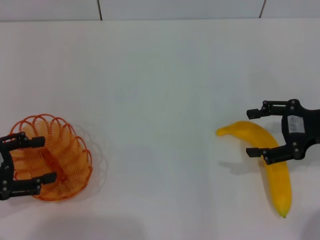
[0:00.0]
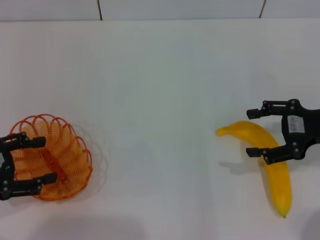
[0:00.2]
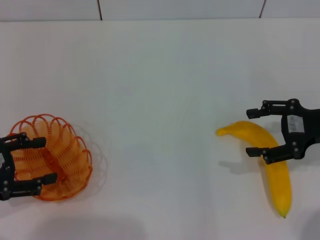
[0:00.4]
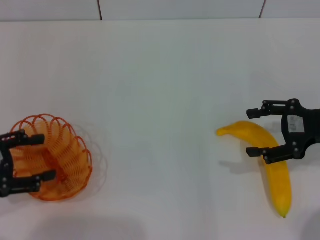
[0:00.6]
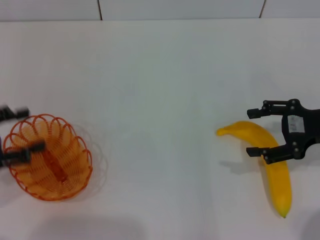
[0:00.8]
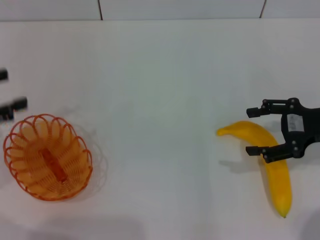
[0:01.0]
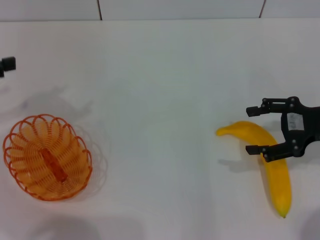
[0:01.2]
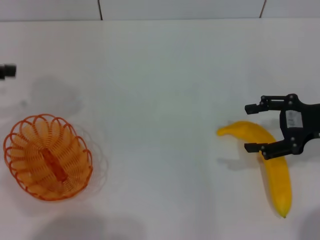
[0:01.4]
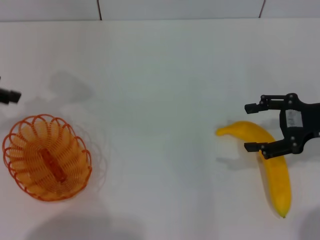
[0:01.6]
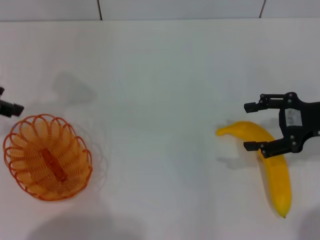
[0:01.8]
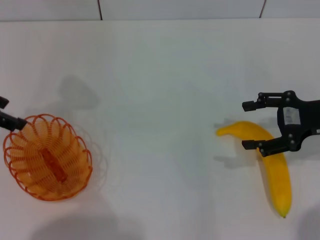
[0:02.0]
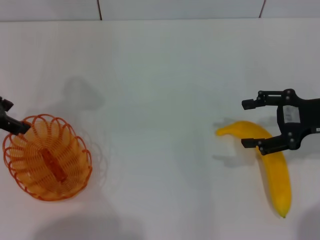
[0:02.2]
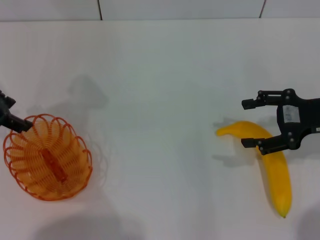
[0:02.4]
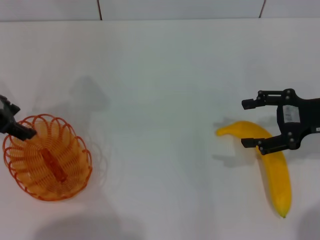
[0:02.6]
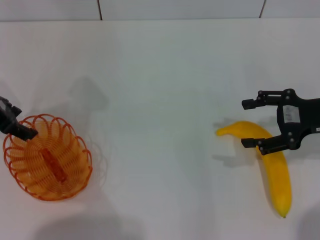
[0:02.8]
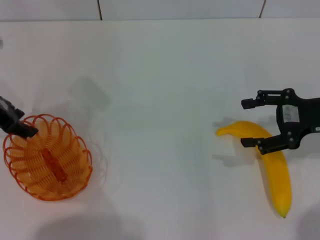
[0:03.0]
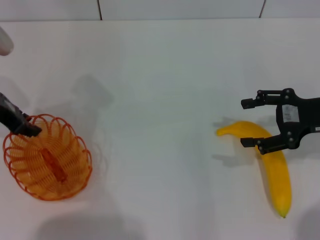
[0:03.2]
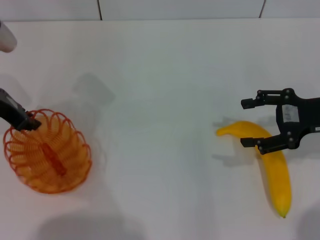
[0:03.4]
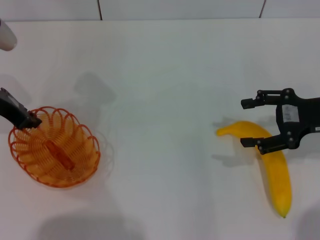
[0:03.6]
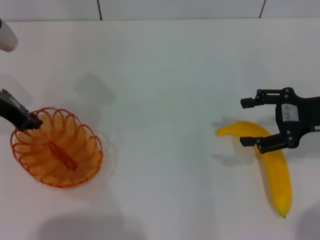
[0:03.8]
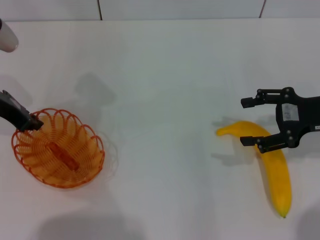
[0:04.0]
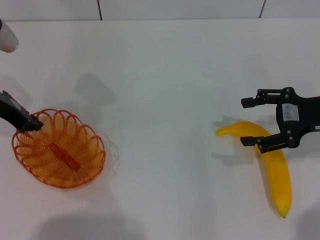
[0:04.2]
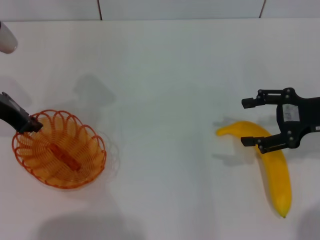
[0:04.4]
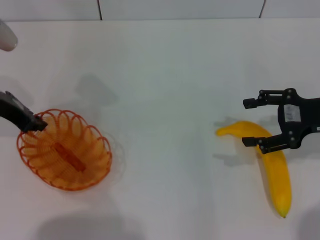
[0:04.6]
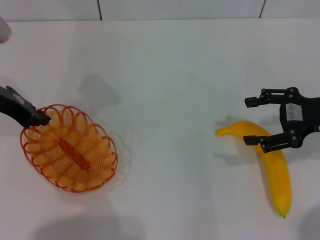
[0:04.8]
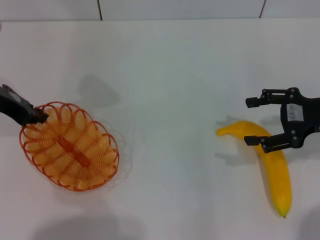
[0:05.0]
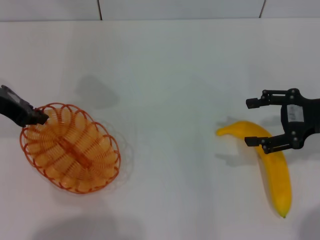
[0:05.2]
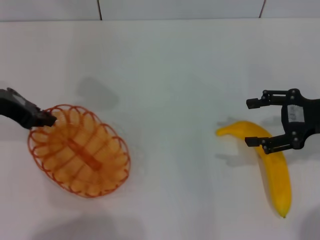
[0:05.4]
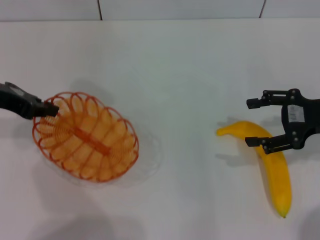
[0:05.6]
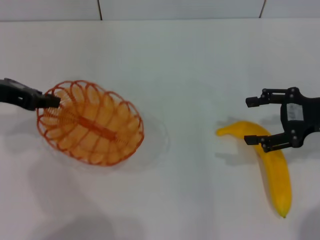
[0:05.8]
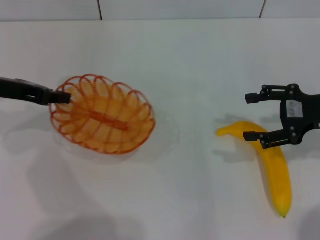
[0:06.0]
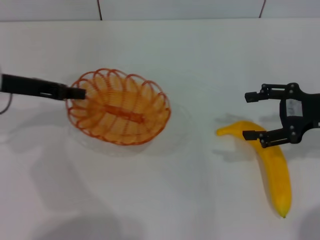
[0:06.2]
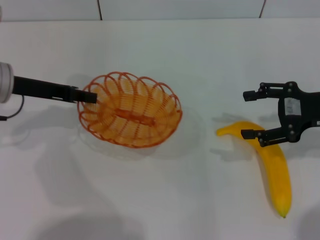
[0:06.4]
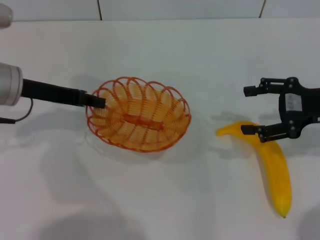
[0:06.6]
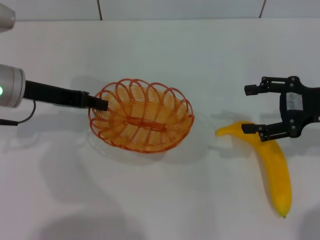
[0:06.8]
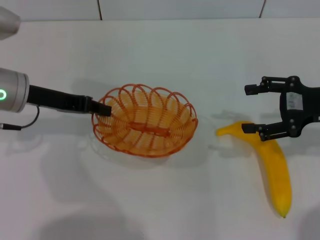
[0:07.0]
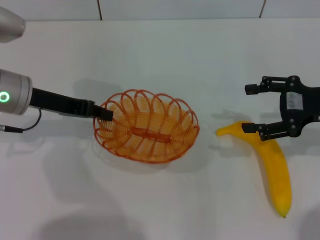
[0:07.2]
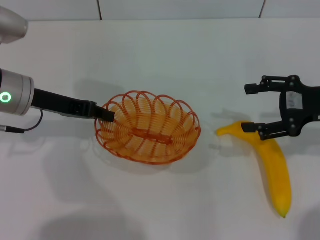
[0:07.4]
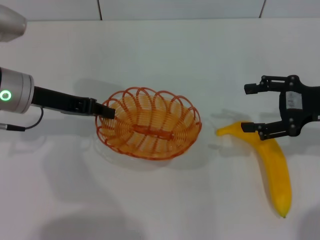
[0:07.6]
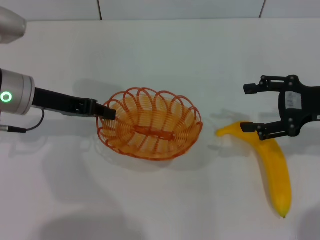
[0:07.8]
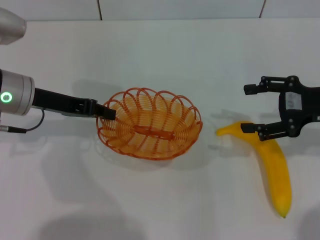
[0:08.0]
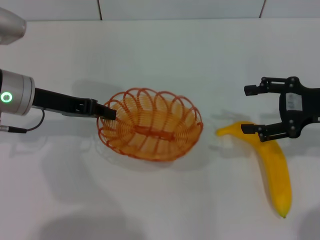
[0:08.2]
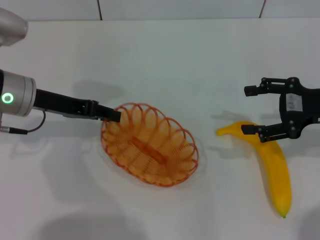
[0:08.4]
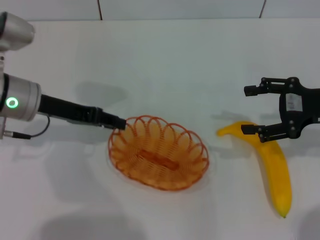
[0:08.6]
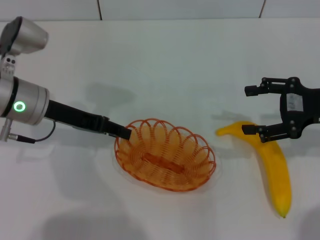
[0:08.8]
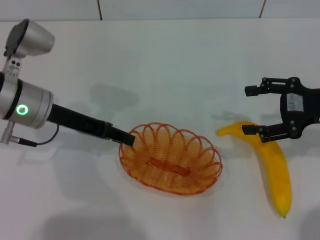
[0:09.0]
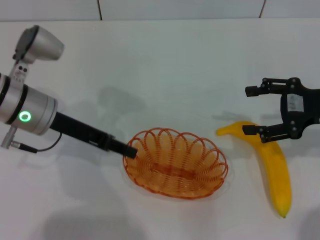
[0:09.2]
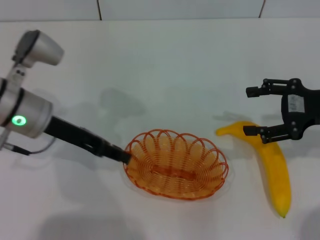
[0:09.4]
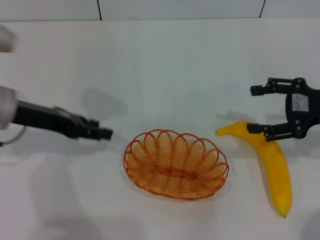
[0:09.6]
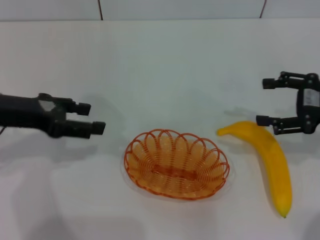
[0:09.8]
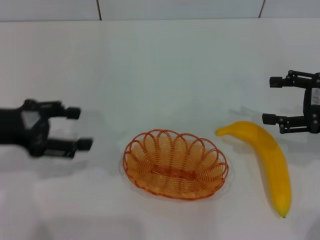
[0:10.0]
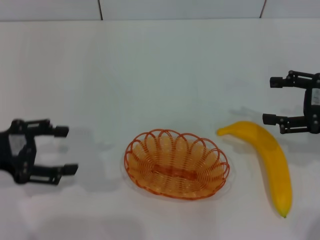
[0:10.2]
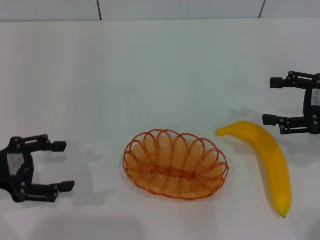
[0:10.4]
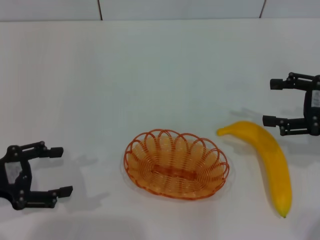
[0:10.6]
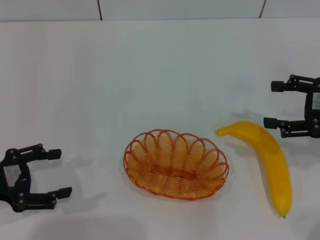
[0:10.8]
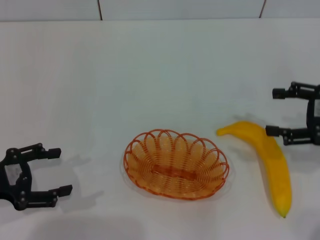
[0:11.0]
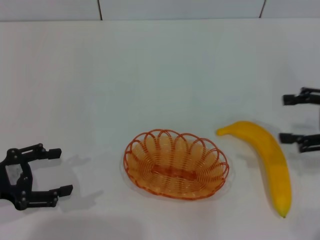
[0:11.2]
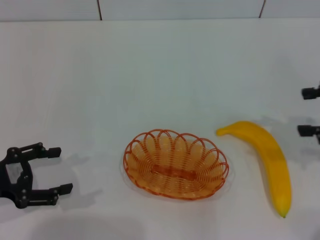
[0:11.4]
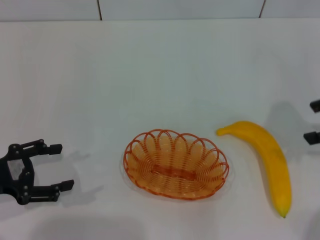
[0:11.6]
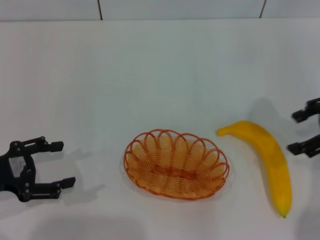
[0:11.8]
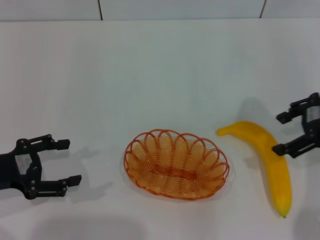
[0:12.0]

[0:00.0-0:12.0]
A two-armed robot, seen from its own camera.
Step, 0:00.0 to 0:04.8: Pick up the basket with the left gripper.
Step, 0:05.0 to 0:09.6: Place the basket in the center of view with the left gripper.
0:00.0 to 0:01.6: The left gripper is displaced forward and upward by roughly 15 cm.
0:01.6 to 0:03.0: The left gripper heads to the right, covering approximately 5 cm.
0:03.0 to 0:04.4: The left gripper closes.
0:06.0 to 0:07.6: The left gripper moves to the right, about 5 cm.
0:07.6 to 0:09.0: The left gripper opens its fingers.
0:09.0 to 0:10.4: The left gripper moves backward and to the left, some 15 cm, and opens up.
0:10.4 to 0:12.0: The right gripper travels upward by approximately 5 cm.

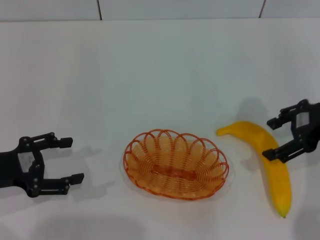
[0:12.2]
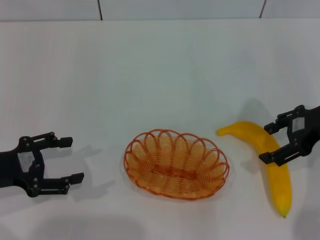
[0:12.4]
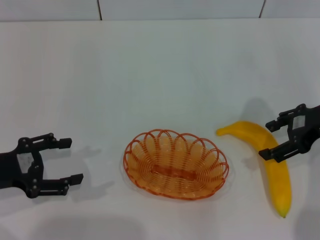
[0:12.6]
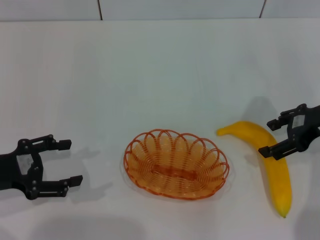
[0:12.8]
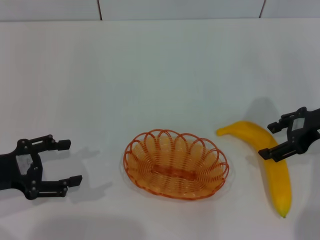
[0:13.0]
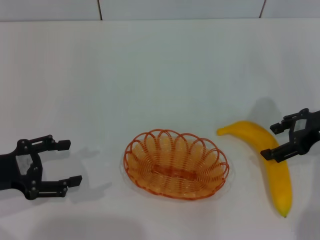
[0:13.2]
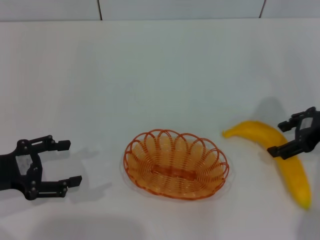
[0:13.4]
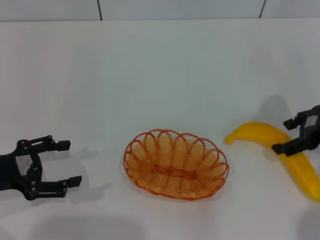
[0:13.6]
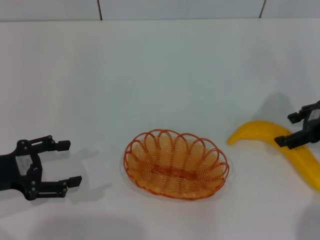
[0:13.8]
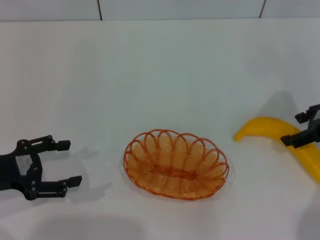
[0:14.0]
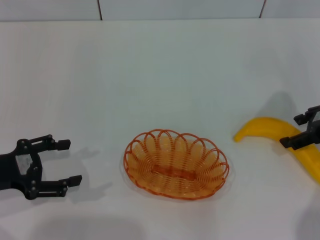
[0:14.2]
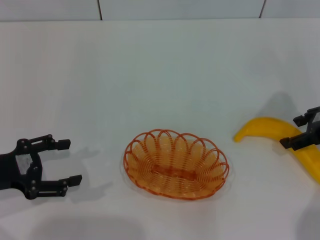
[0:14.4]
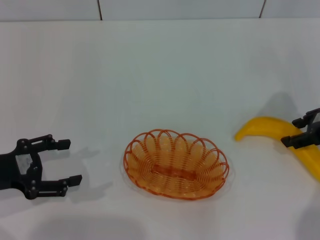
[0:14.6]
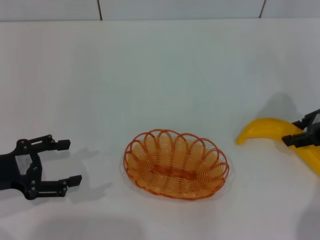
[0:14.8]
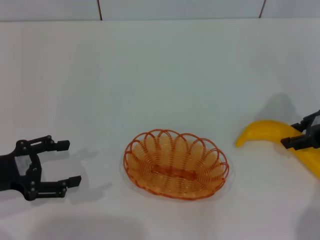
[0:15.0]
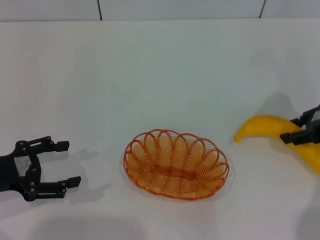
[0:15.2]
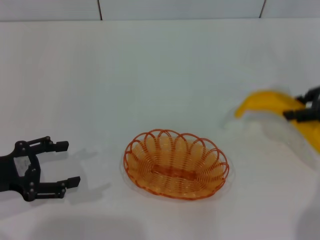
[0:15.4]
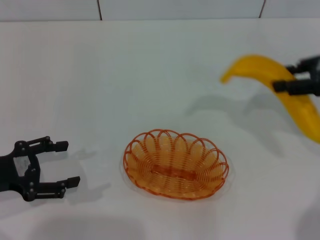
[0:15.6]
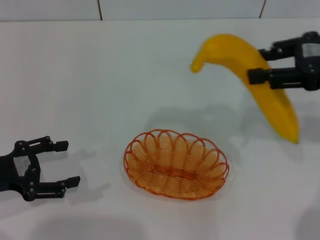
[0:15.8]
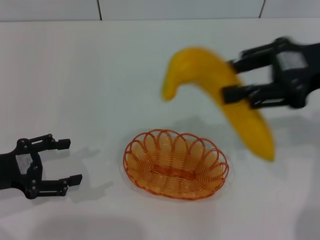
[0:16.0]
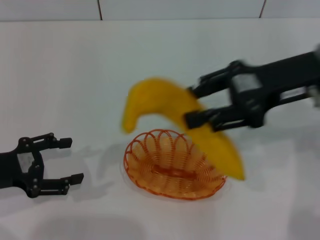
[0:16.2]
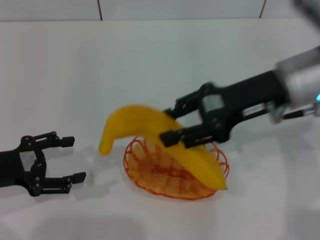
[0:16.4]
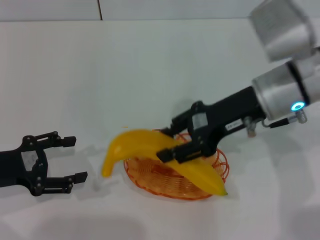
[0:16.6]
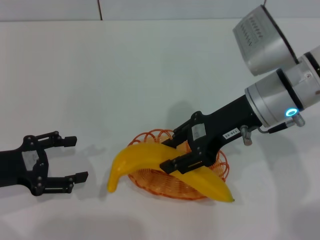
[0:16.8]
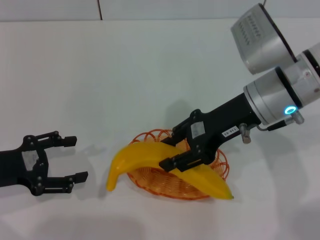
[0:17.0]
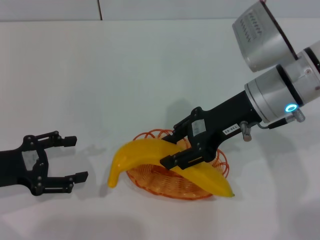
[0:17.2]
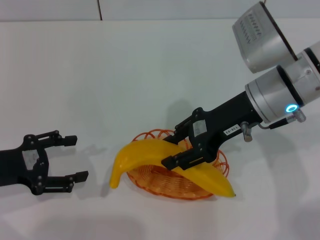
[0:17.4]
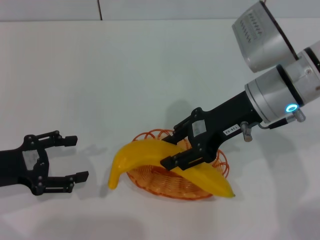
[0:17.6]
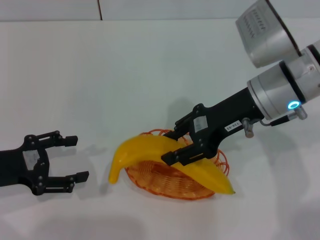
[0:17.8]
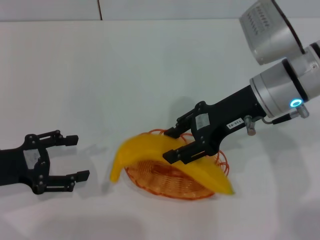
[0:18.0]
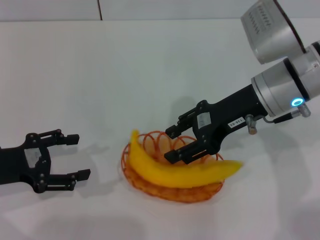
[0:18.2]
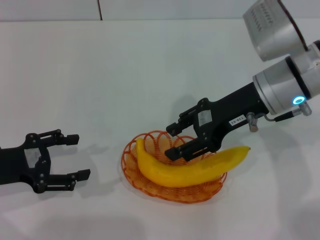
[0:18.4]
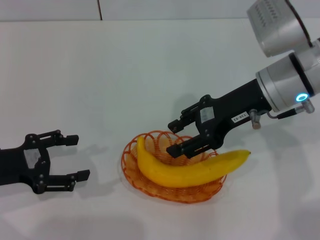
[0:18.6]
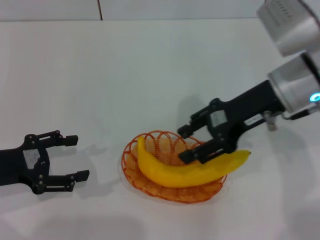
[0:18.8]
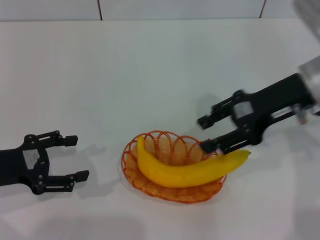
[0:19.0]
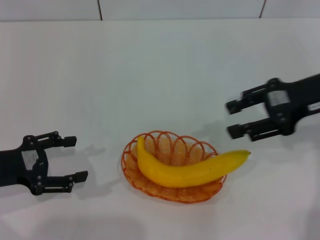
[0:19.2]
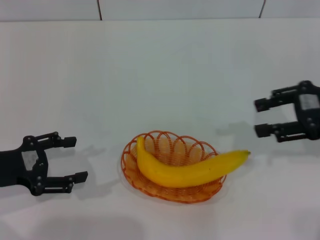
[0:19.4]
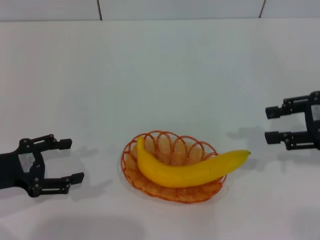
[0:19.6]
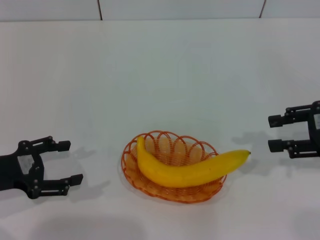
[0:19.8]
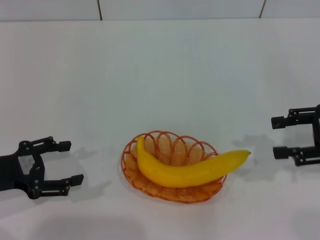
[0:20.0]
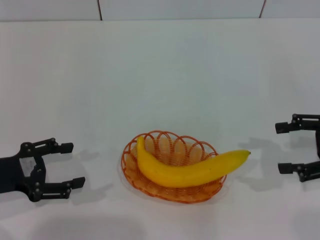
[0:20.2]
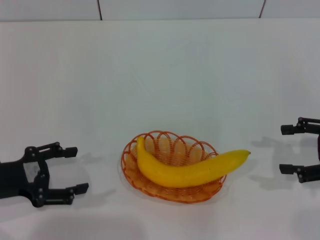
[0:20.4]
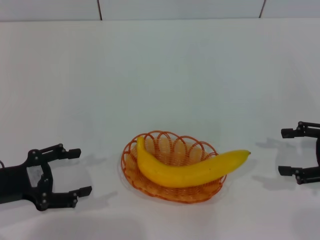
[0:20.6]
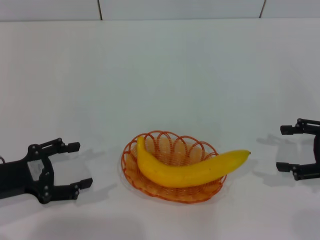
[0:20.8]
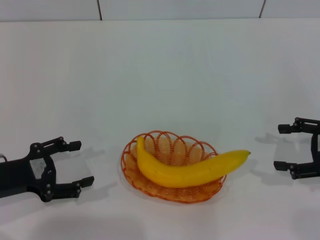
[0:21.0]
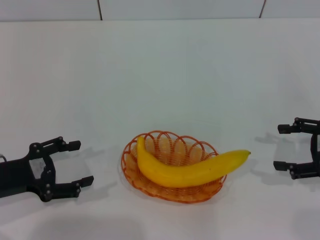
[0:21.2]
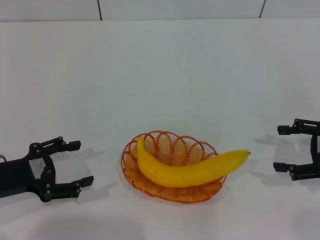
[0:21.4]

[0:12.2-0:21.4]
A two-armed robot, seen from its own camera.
Step, 0:12.2 to 0:15.4: Pick up the banana with the right gripper.
Step, 0:15.8 to 0:18.4: Place the banana into the basket with the right gripper.
0:12.2 to 0:13.8: The grippers move only a little.
0:13.8 to 0:15.2: The right gripper closes.
0:15.2 to 0:16.8: The right gripper is displaced to the left by some 15 cm.
0:16.8 to 0:18.4: The grippers stay close to where they were, moving slightly.
0:18.4 to 0:19.8: The right gripper heads to the right, covering approximately 15 cm.
0:19.8 to 0:21.4: The right gripper travels downward by some 5 cm, and opens.
